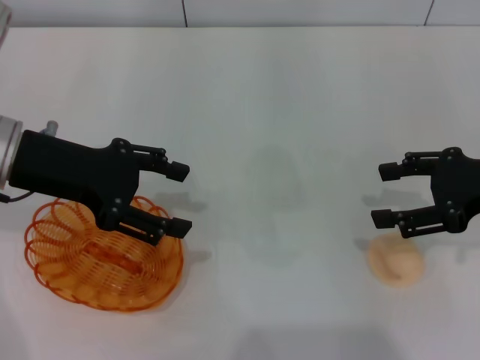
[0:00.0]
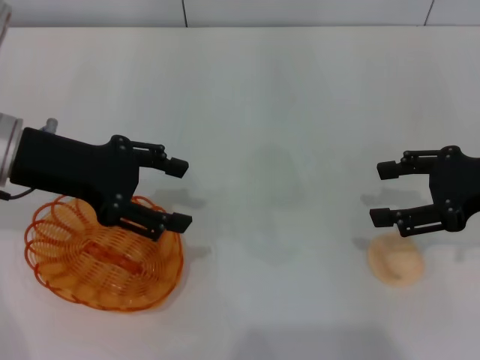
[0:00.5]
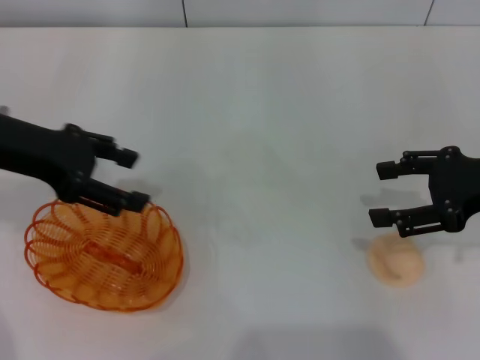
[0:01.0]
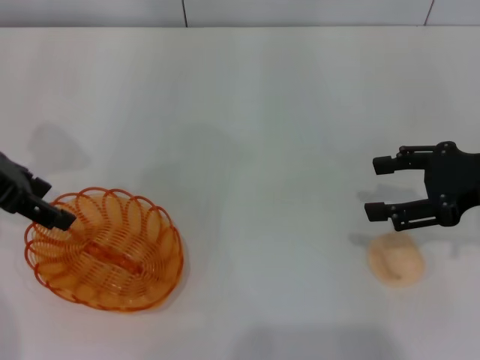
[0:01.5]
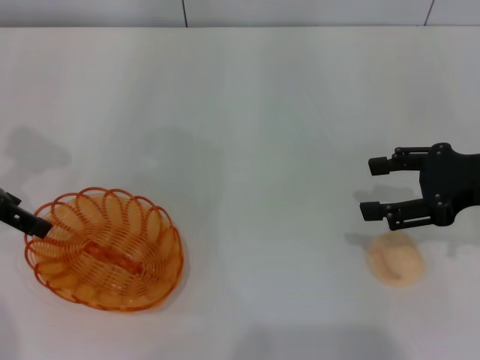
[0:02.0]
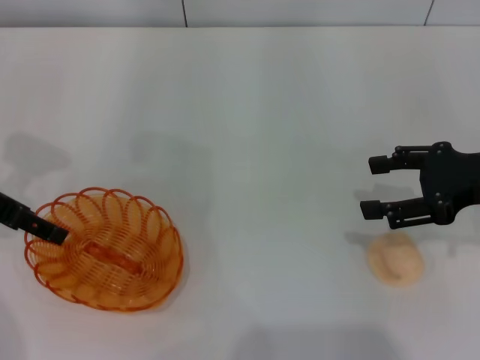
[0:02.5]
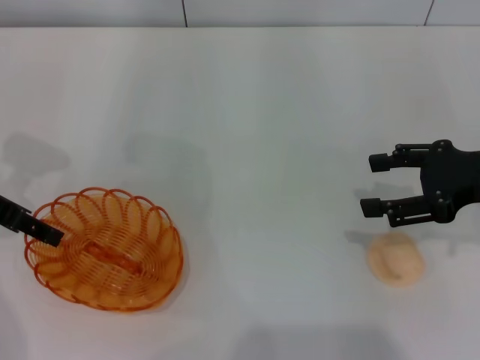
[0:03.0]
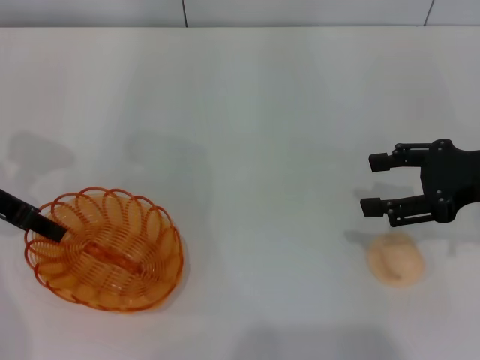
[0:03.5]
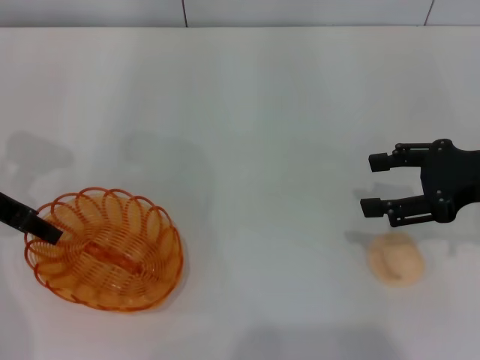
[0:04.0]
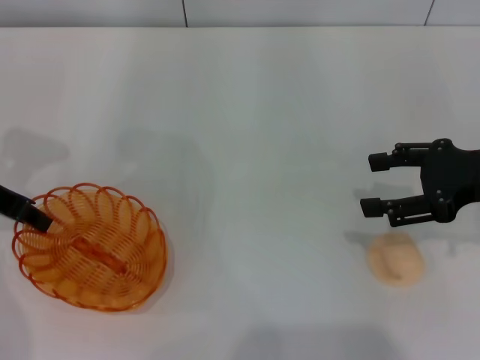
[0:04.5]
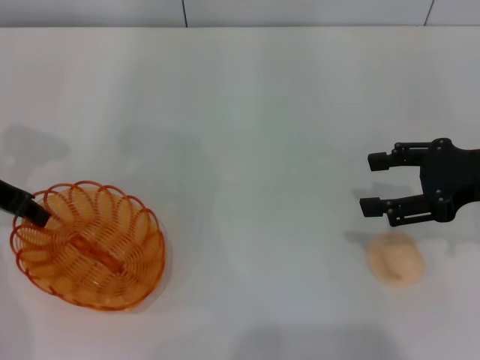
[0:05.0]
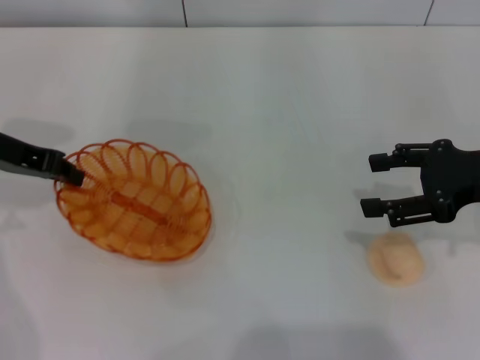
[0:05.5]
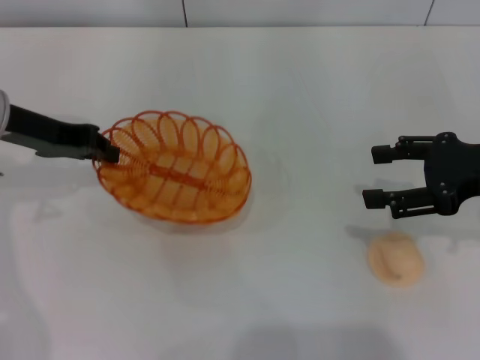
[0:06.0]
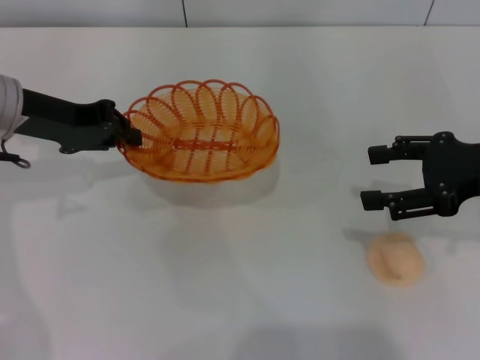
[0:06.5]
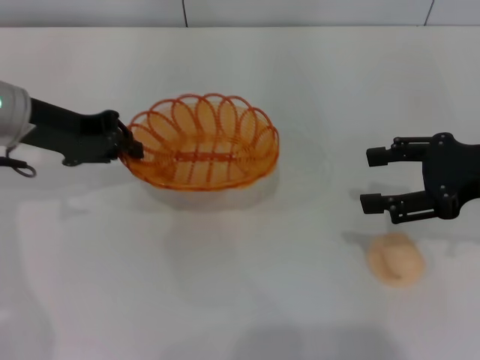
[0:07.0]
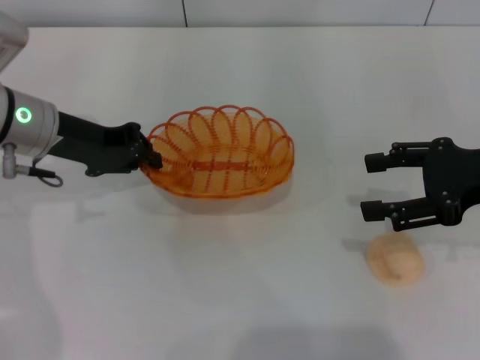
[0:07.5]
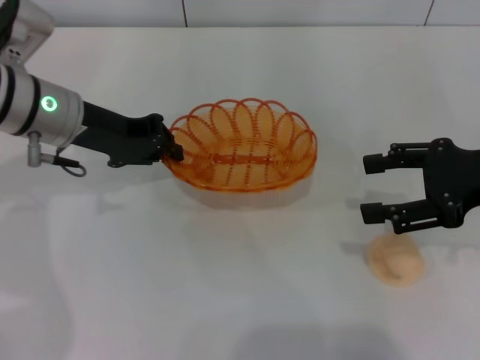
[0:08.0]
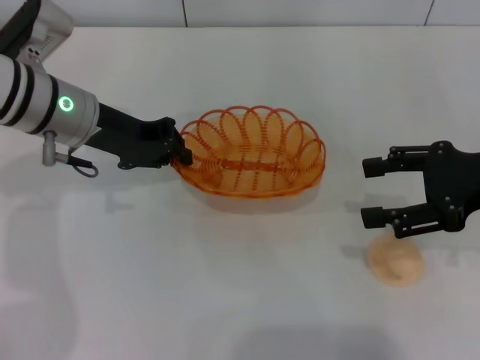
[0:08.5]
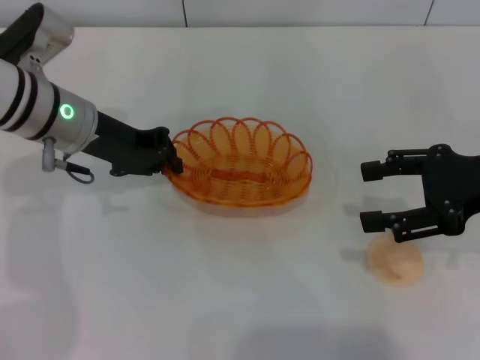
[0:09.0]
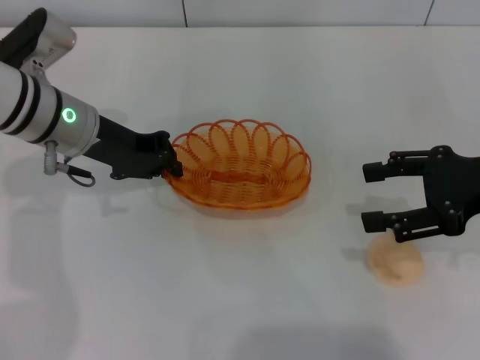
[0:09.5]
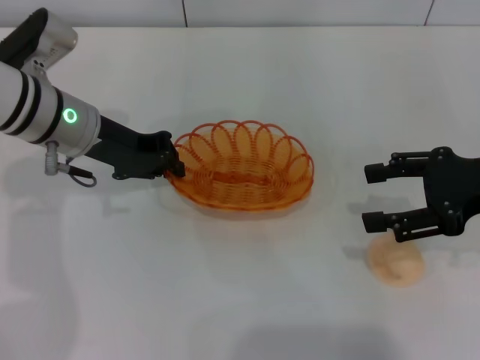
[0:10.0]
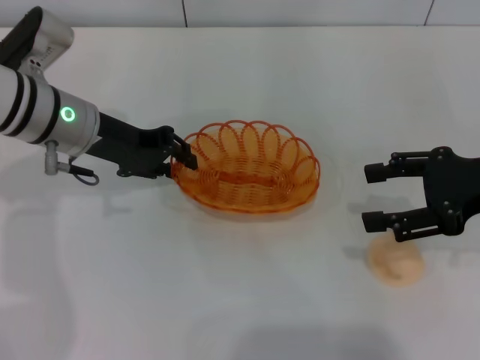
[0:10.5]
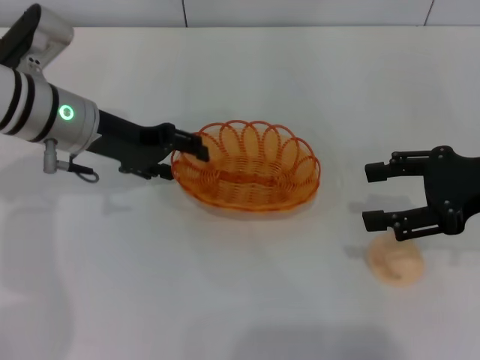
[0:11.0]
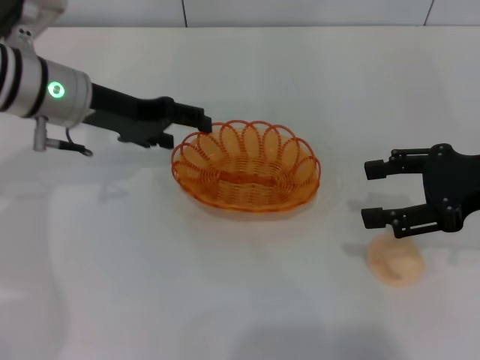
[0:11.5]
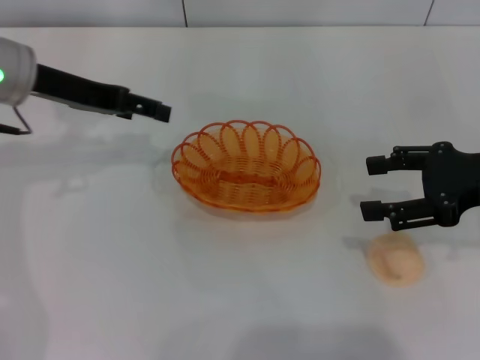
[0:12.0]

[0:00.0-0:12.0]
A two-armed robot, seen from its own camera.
Step, 0:00.0 to 0:06.5: Pick up the basket with the left gripper.
Step, 0:07.0 to 0:11.5: Place the basket in the center of view with the left gripper.
0:00.0 to 0:02.0: The left gripper travels to the left by about 5 cm.
0:06.0 to 0:08.0: The left gripper shifts about 5 cm to the right.
0:08.0 to 0:10.0: There are only small adjustments of the grippers.
0:10.0 to 0:12.0: The left gripper moves upward, some 5 cm, and opens its fingers.

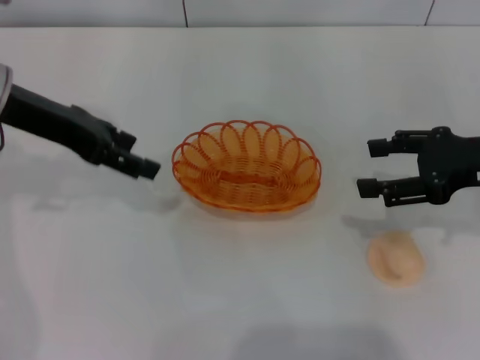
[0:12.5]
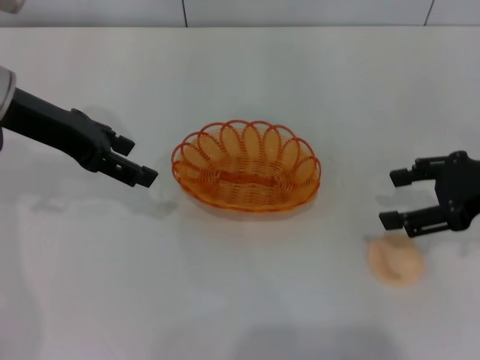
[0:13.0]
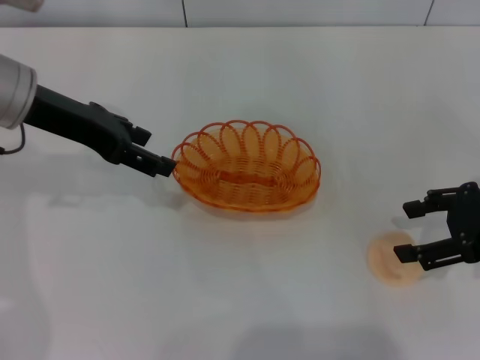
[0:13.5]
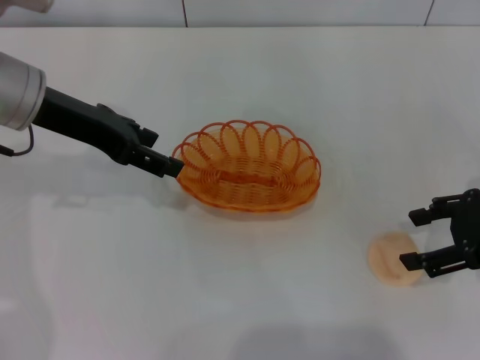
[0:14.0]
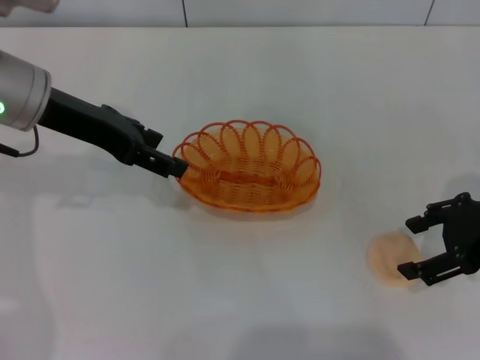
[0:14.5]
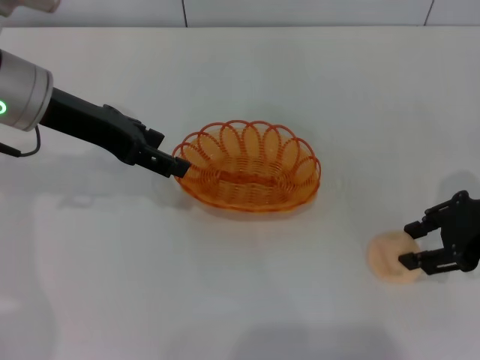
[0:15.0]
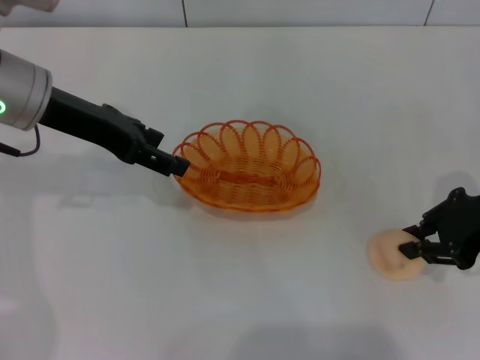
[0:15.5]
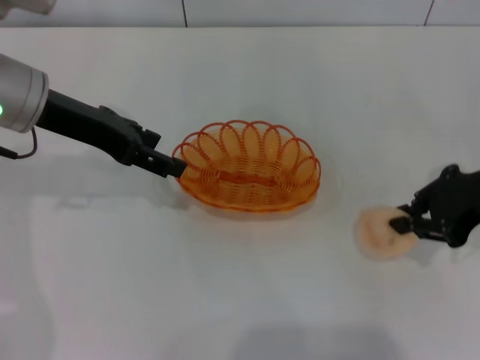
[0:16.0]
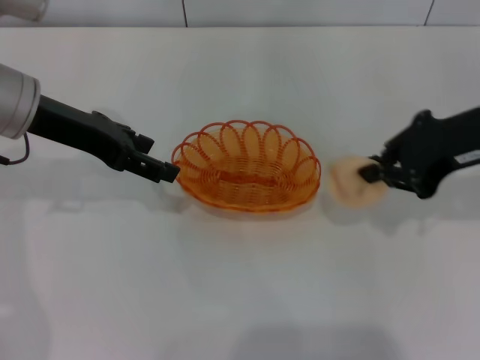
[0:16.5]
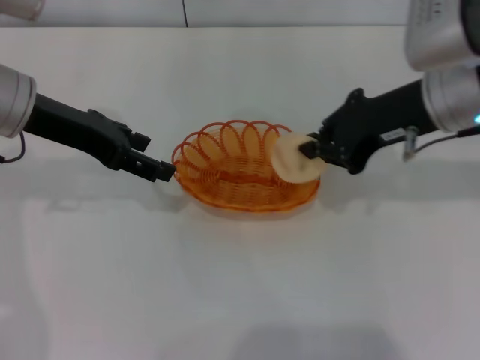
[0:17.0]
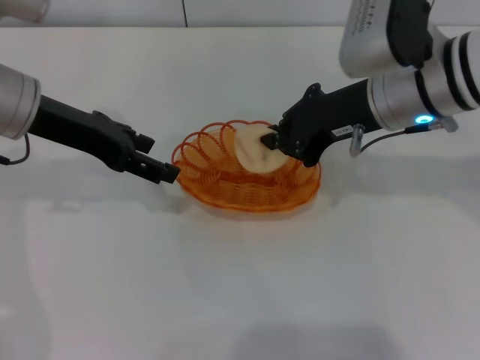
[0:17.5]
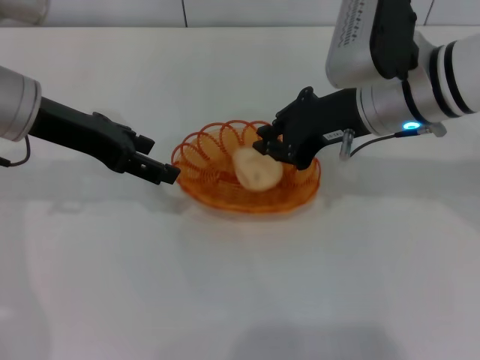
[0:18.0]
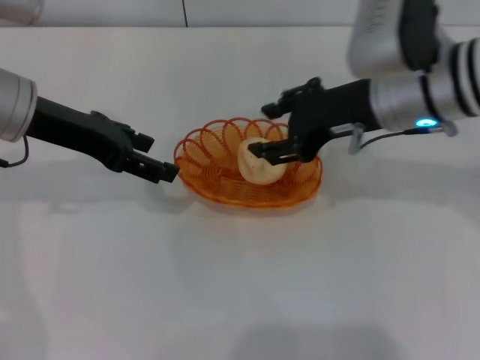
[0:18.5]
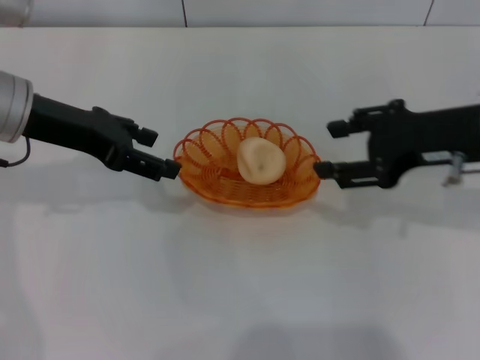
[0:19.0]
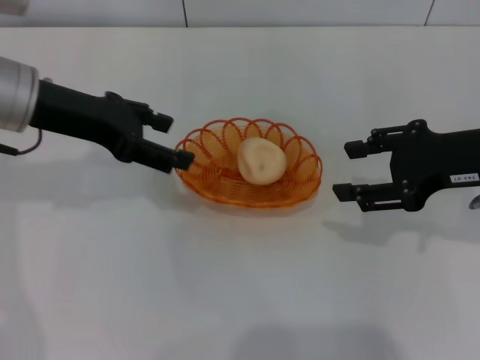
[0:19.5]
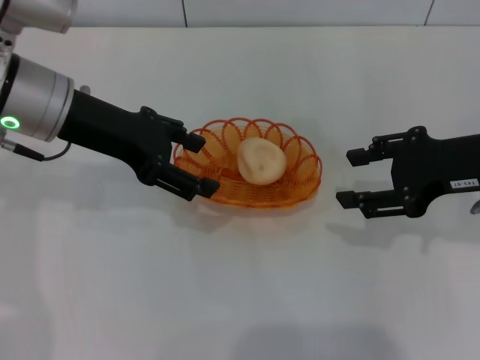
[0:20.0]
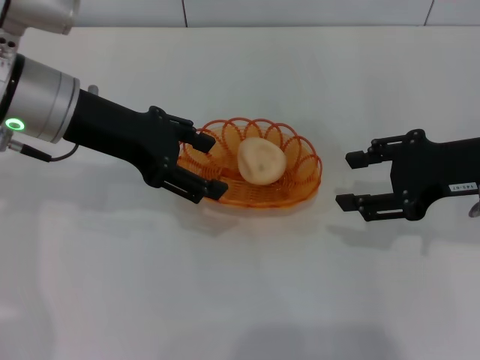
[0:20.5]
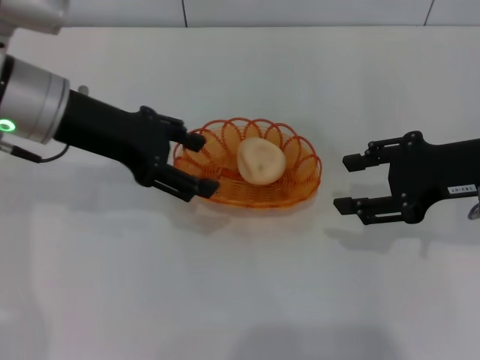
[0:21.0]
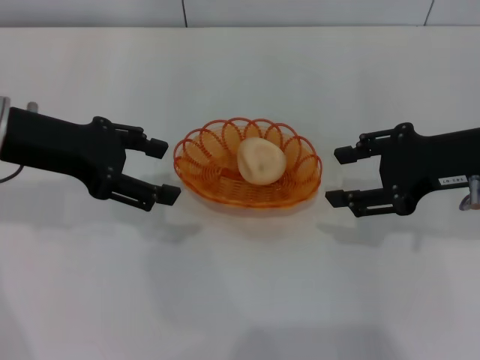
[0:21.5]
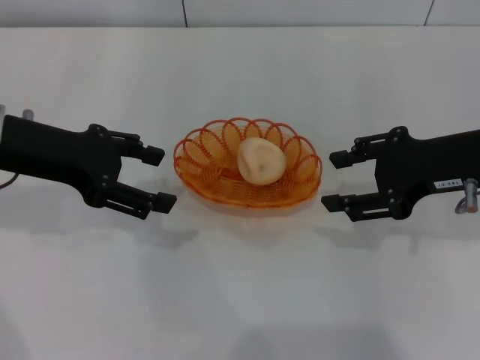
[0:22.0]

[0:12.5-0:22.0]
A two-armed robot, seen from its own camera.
Step, 0:12.5 to 0:16.0: Pick up the egg yolk pastry with the right gripper.
Step, 0:16.5 to 0:18.5: Place the egg yolk pastry into the basket with the right gripper.
0:14.5 to 0:16.5: The right gripper heads upward and to the left, covering about 10 cm, and closes up.
0:16.5 to 0:18.0: The right gripper moves to the left, roughly 10 cm.
0:18.0 to 0:20.0: The right gripper is displaced to the right and backward by roughly 15 cm, and opens.
0:20.0 to 0:22.0: The left gripper shifts approximately 5 cm to the left.
